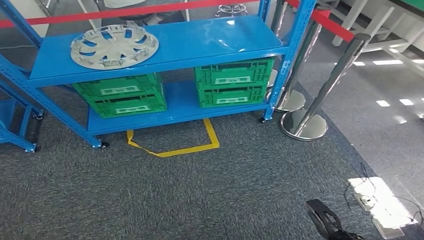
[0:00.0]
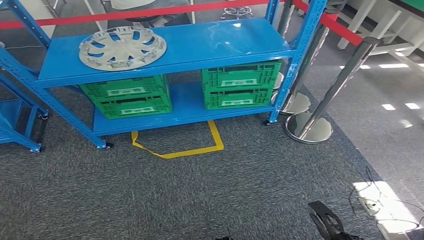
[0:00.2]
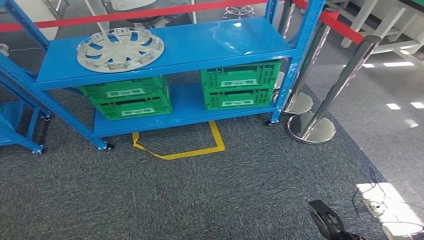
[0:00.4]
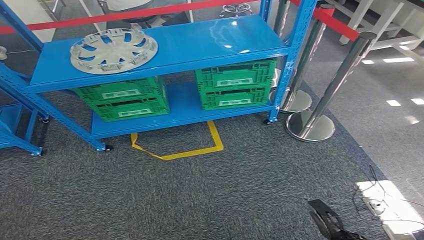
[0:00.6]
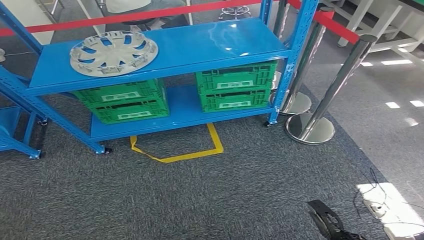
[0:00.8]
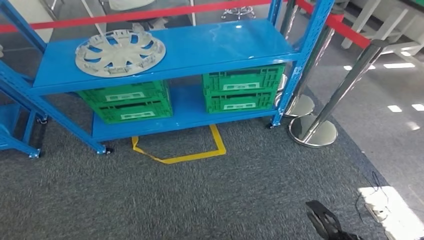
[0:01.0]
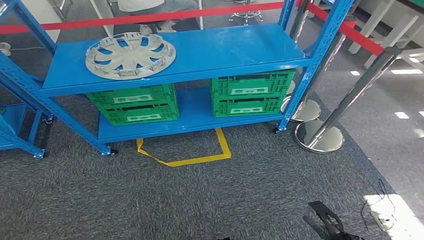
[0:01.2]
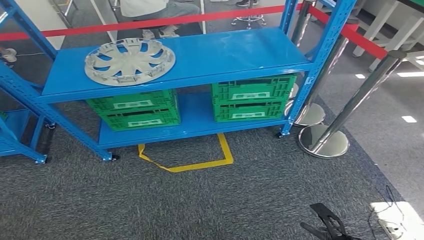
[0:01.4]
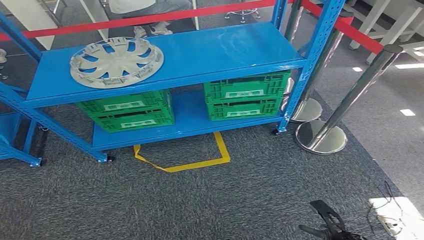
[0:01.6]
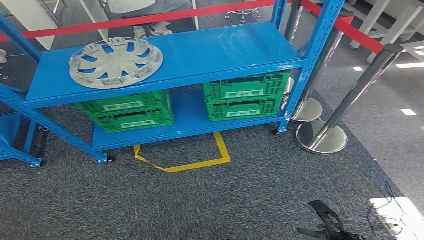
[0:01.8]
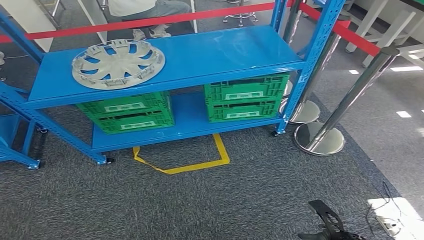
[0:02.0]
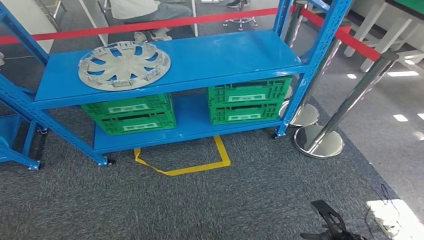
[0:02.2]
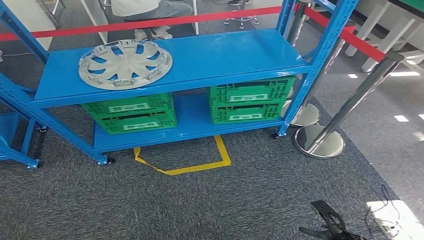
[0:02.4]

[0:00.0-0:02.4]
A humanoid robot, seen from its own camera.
Step, 0:00.0 to 0:02.4: Return to the initial position at the workbench.
